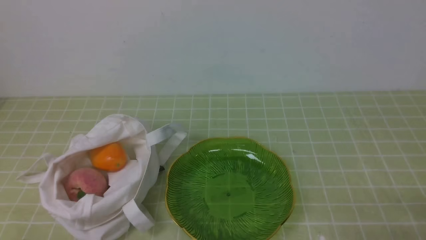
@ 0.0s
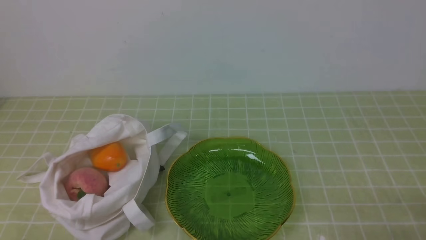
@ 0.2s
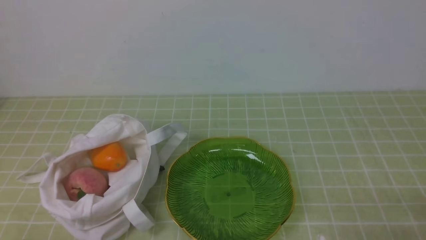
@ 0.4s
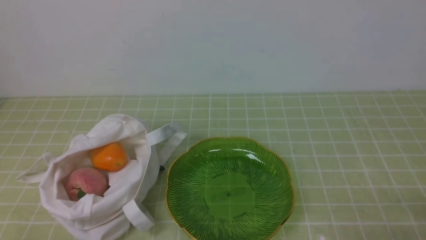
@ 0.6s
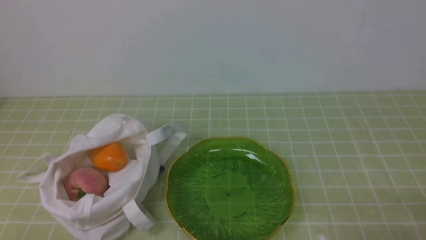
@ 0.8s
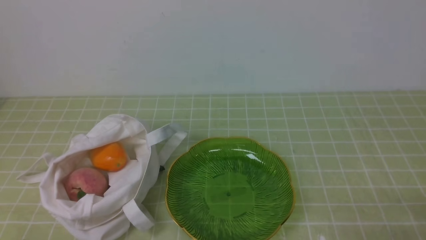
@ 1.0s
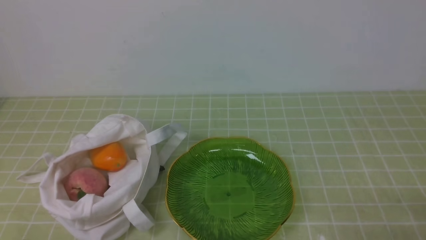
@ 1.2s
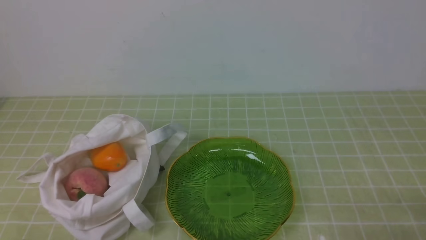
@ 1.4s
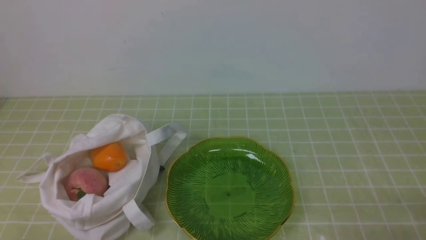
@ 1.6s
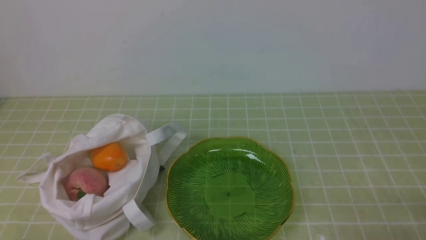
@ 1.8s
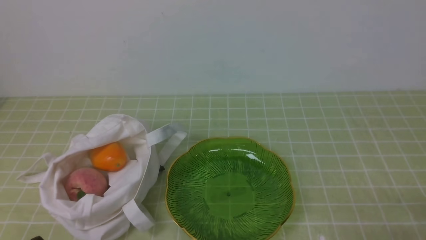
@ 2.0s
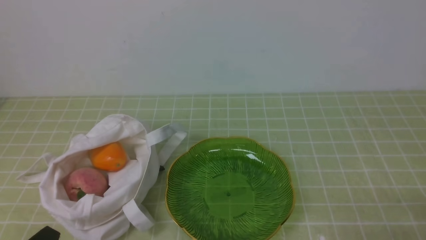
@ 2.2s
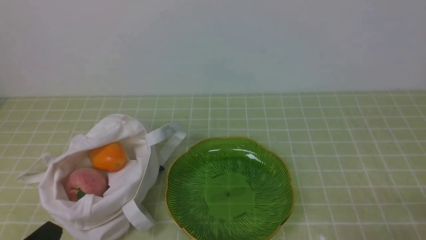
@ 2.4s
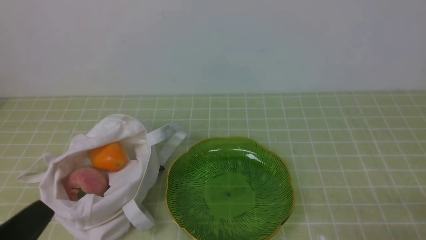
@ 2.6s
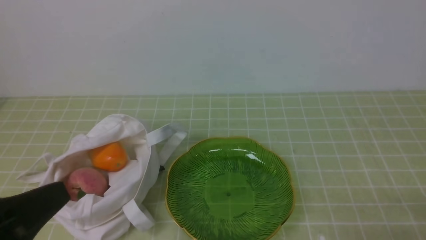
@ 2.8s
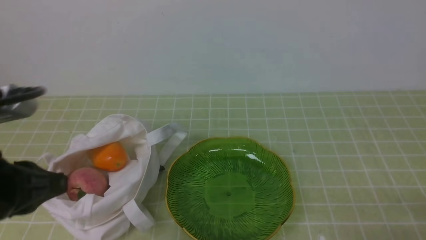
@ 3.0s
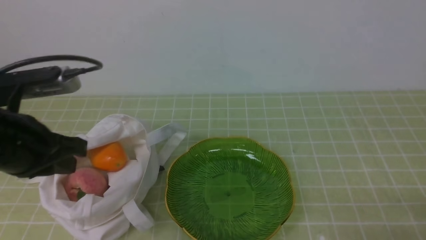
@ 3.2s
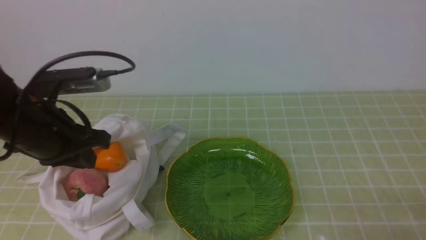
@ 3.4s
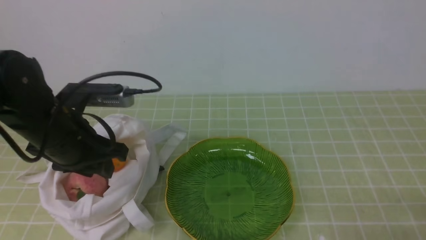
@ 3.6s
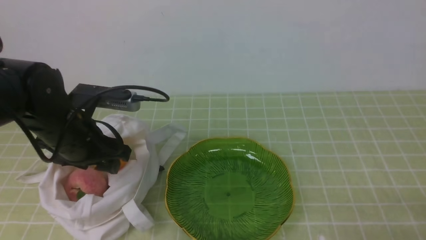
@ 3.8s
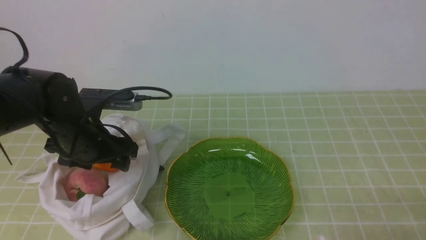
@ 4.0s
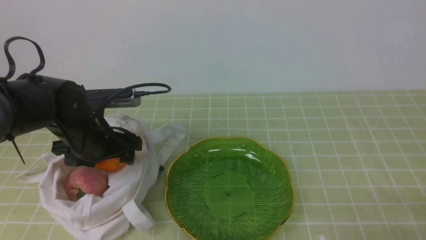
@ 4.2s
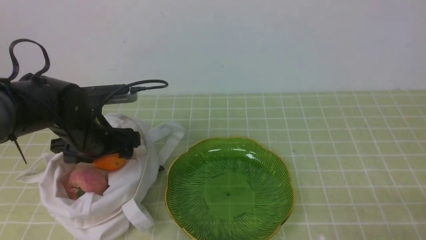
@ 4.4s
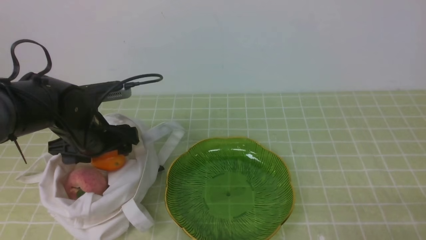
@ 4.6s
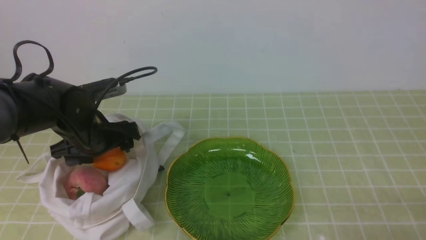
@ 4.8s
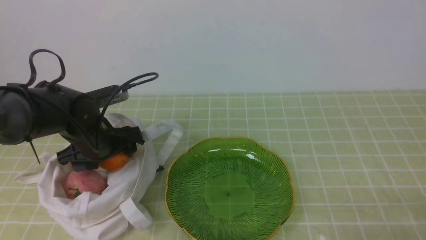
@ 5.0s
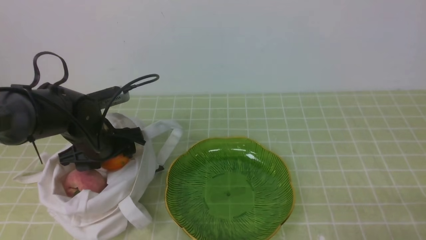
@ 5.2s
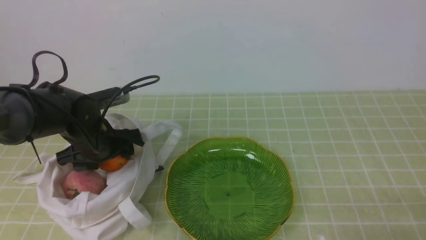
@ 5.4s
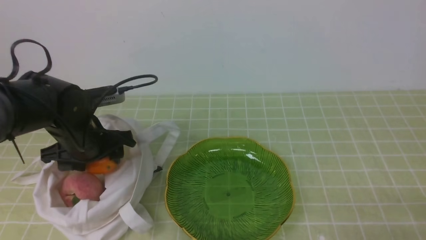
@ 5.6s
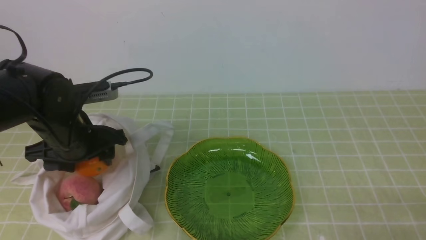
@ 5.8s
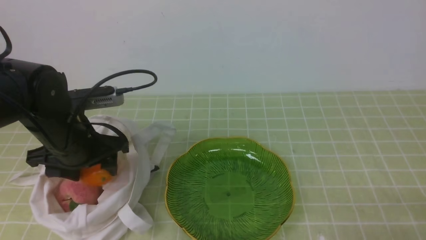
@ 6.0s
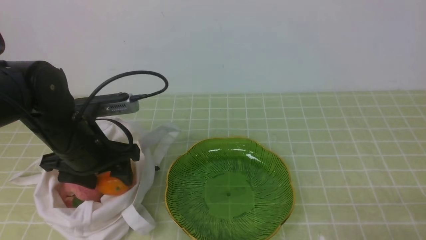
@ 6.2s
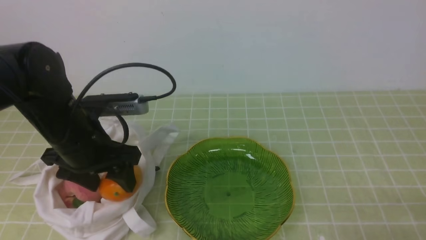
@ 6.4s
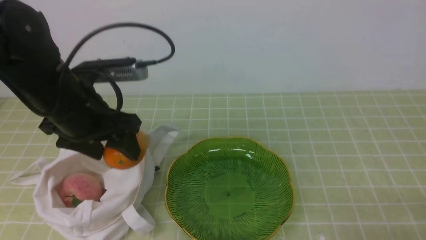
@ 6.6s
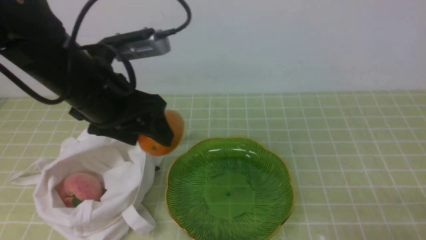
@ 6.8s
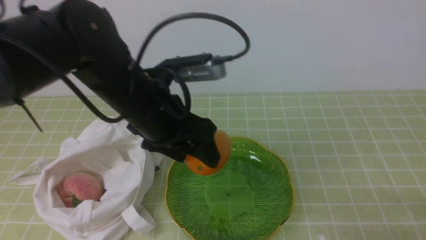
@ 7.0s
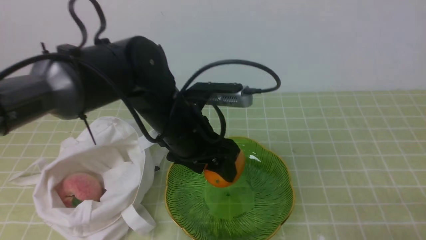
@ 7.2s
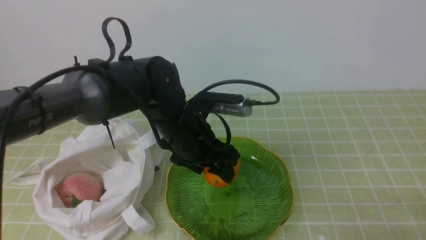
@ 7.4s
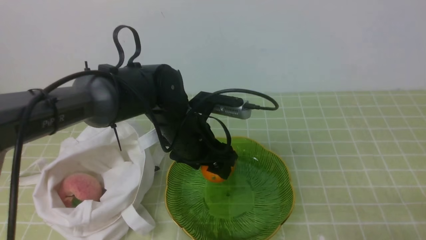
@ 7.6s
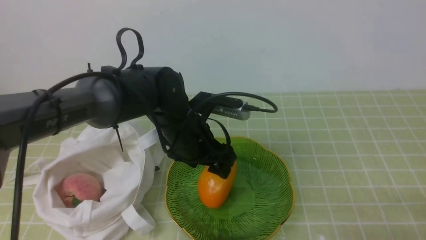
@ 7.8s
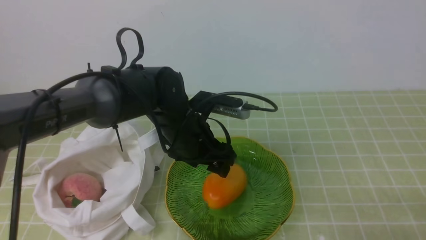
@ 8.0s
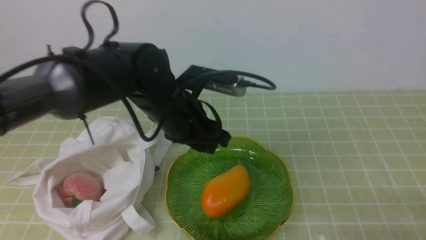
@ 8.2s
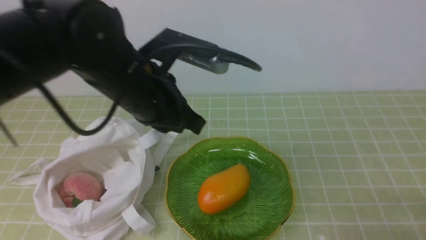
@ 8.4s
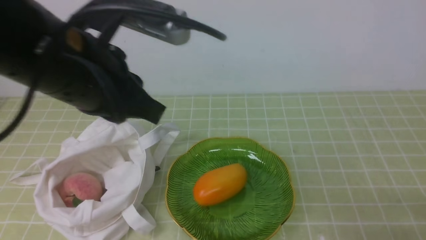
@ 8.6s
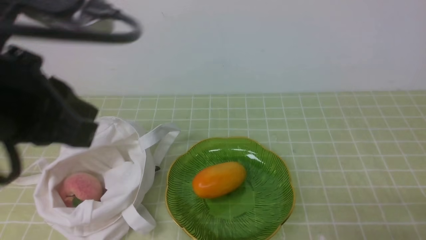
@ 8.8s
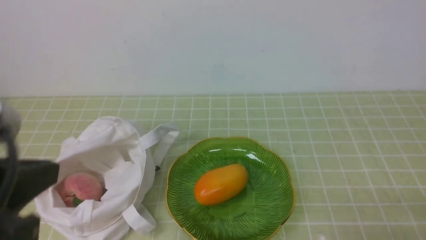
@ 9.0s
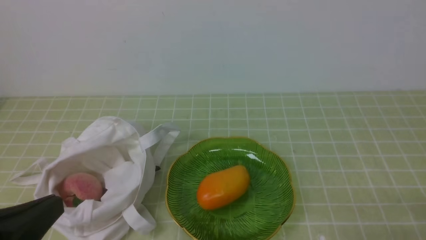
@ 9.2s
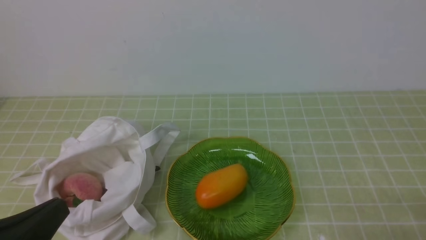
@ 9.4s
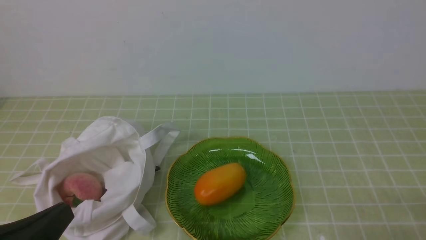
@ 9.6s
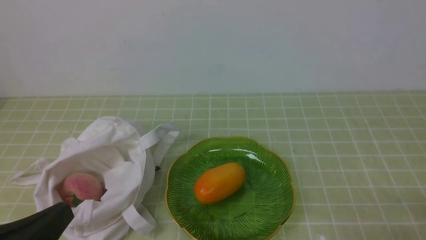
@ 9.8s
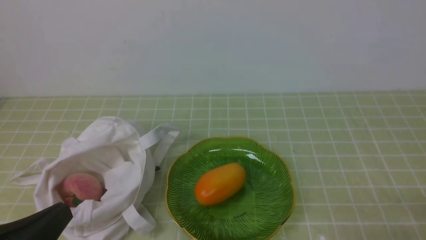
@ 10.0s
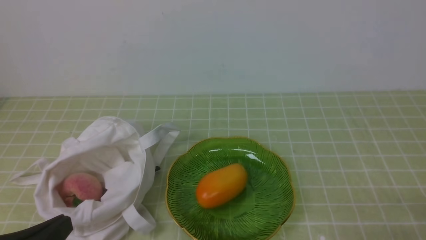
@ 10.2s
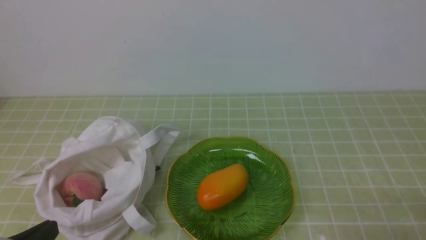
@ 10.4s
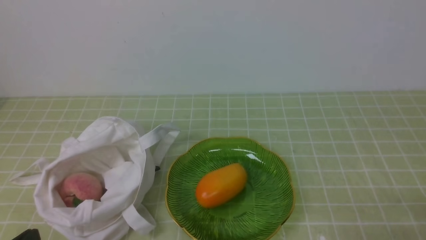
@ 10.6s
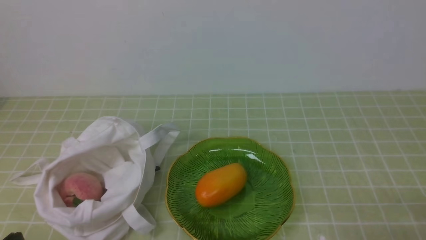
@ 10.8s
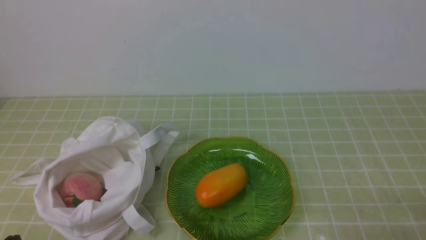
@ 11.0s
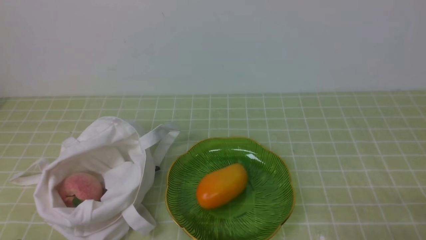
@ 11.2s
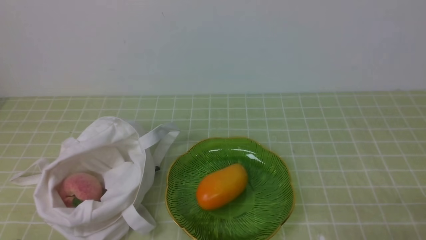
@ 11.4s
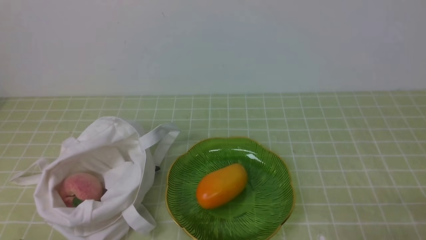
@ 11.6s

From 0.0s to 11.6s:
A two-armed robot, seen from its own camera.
Step, from 0.0s to 5.4s: use the left arm to grab a mango from the bag.
Step, from 5.6s to 8.0s: use the left arm to put the mango into the empty plate on the right.
From 0.0s to 1.4s: Both grippers stay about where they are.
From 1.4s to 2.8s: The left gripper travels upward by roughly 15 cm.
From 2.8s to 4.4s: The left gripper is displaced forward and downward by approximately 25 cm, and opens up.
From 4.4s to 5.8s: The grippers stay close to where they were, moving slightly.
From 5.8s to 7.2s: The left gripper is displaced to the right by about 15 cm.
From 7.2s to 8.8s: The left gripper shifts roughly 25 cm backward, upward and to the left, and closes.
From 8.8s to 10.2s: The left gripper shifts roughly 20 cm downward and backward.
From 10.2s to 11.6s: The left gripper moves downward, about 5 cm.

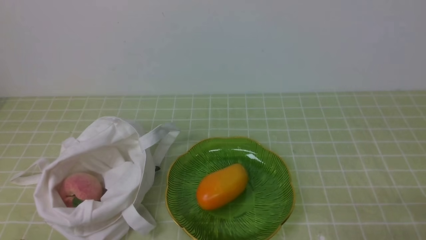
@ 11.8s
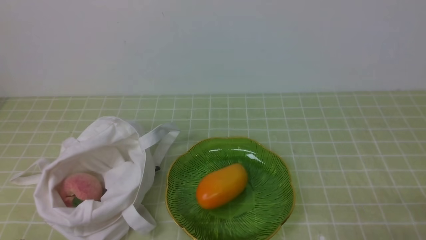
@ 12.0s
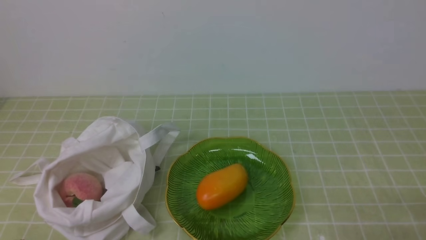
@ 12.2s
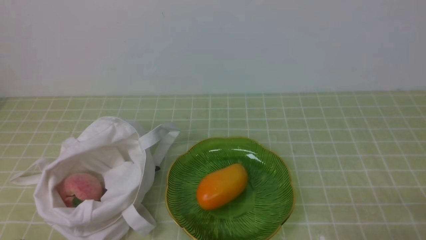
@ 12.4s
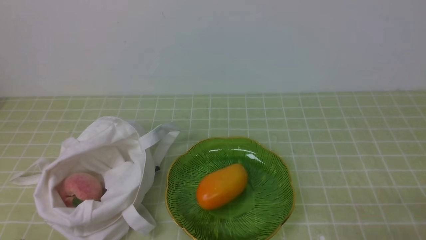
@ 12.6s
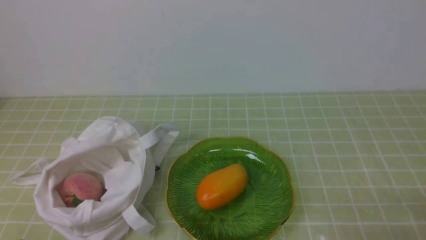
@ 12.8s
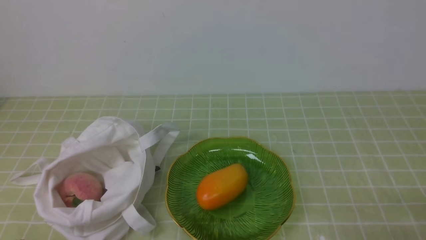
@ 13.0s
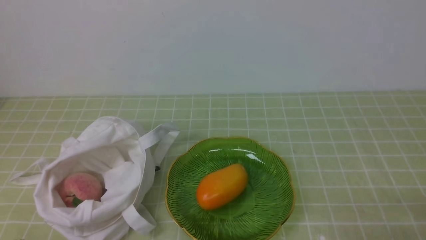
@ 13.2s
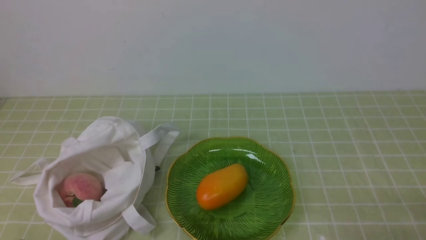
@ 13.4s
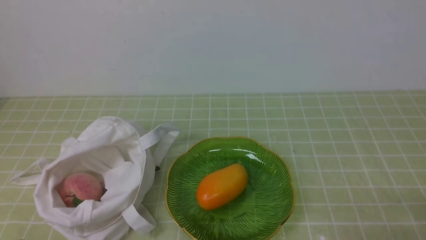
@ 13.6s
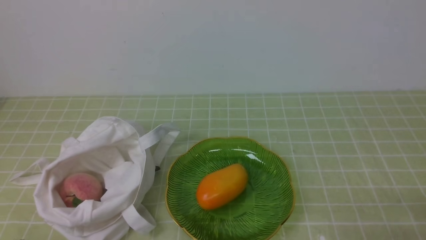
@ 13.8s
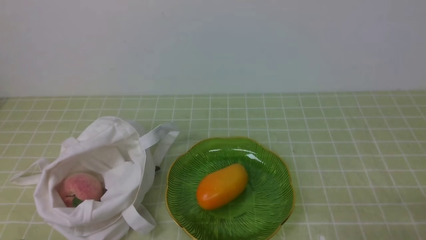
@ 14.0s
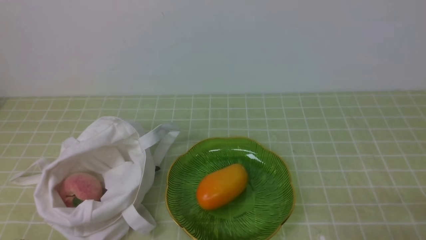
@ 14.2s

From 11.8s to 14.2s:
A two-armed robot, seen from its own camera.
From 11.8s to 14.2s: Both grippers stay put.

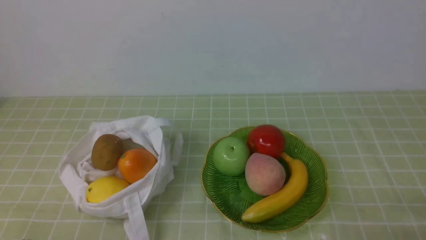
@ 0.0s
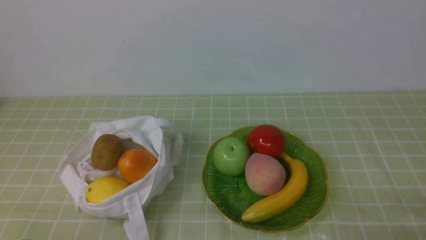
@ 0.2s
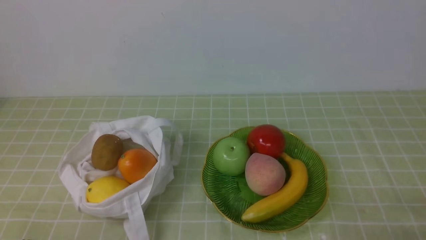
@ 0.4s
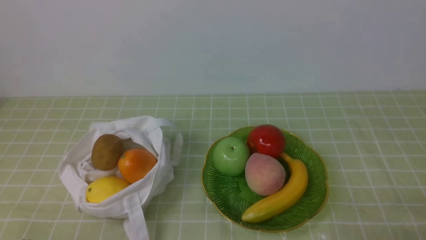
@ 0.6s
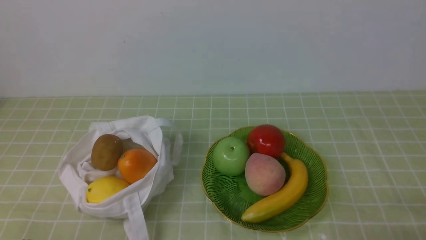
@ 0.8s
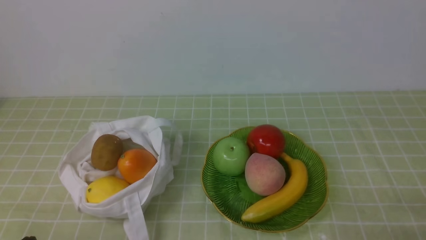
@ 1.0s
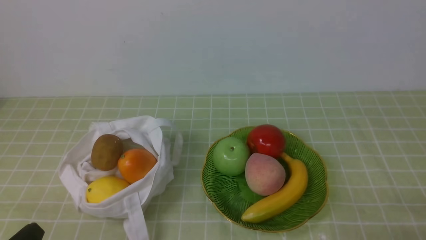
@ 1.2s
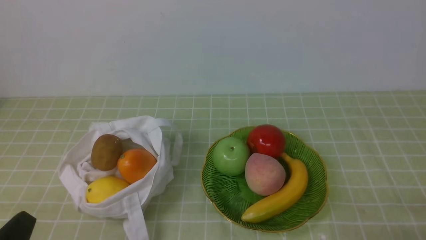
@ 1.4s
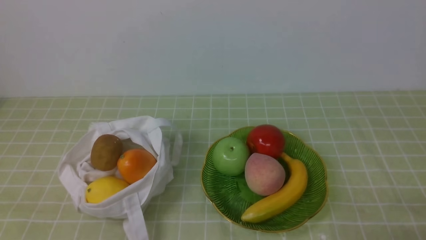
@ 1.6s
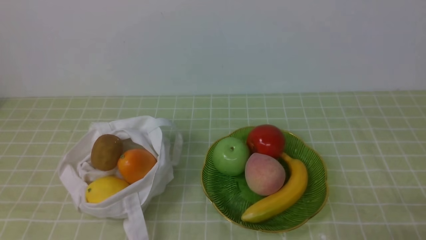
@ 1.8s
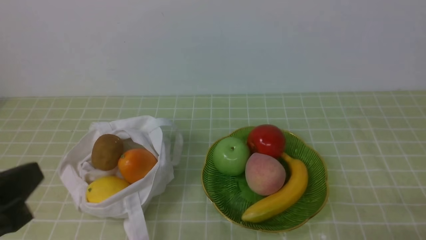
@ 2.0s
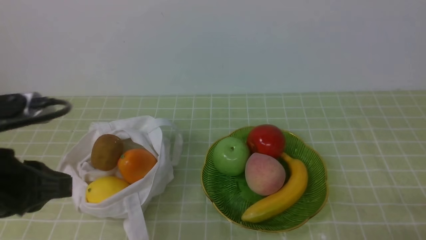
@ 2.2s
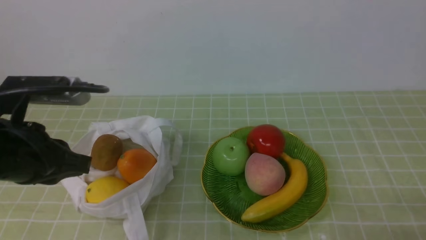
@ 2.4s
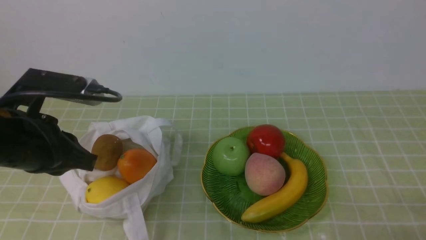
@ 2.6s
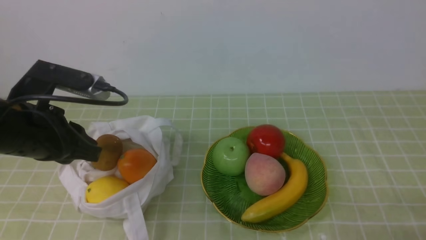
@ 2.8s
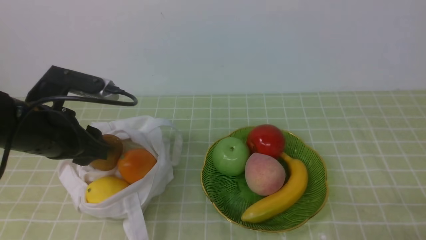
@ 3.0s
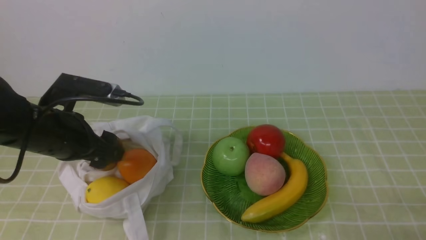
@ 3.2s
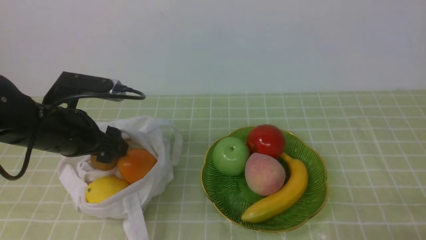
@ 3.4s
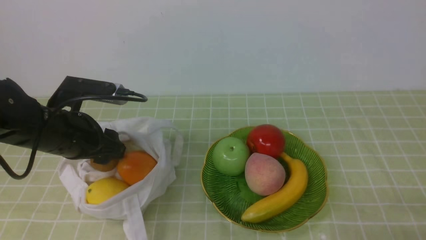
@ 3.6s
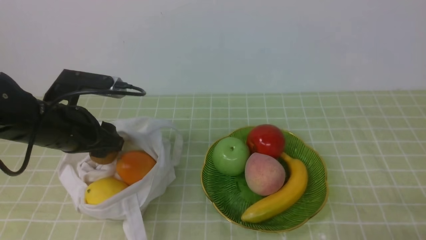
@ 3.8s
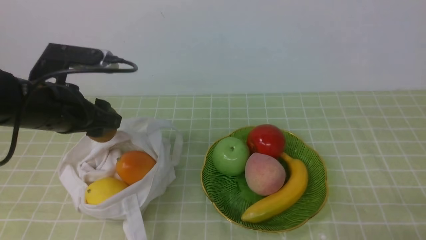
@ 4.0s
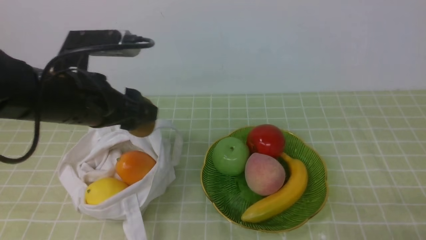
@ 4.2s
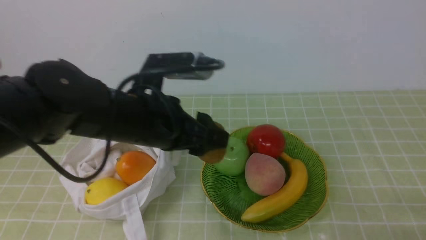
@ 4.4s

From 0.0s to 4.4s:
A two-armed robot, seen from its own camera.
Step, from 0.0s to 3.8s: use the left arm to grab a kiwi from the bag.
From 1.4s to 3.0s: The left gripper is displaced forward and upward by approximately 20 cm, and opens its fingers.
From 3.0s to 4.4s: The left gripper travels to the right by about 10 cm.
